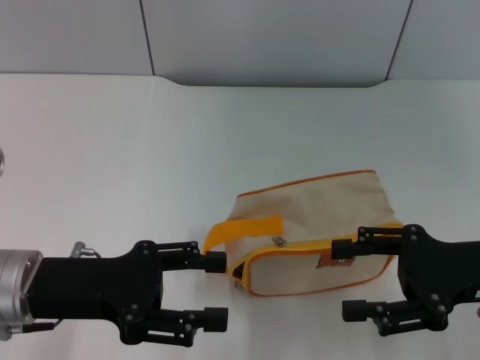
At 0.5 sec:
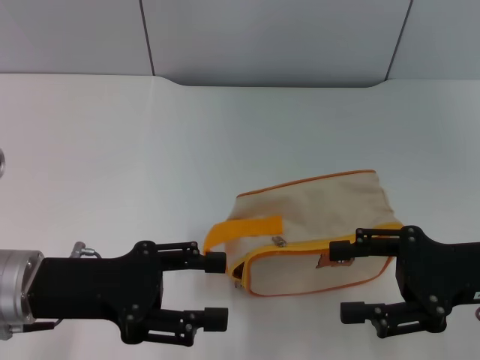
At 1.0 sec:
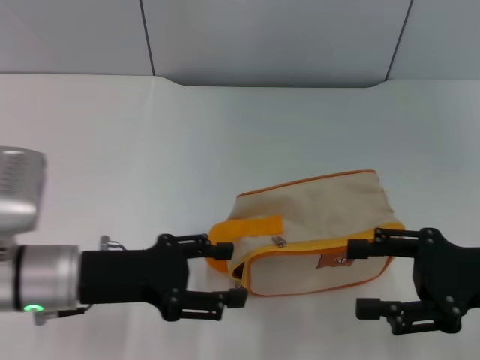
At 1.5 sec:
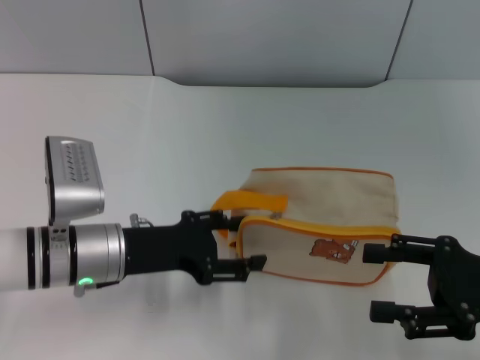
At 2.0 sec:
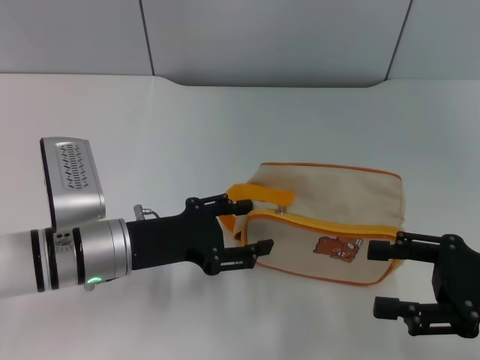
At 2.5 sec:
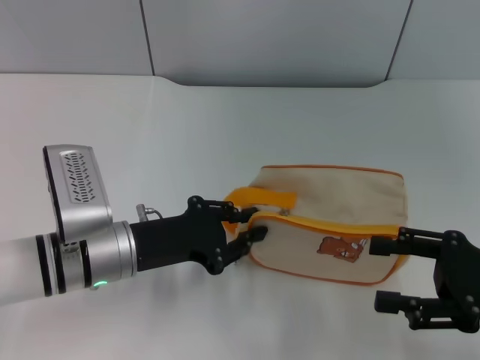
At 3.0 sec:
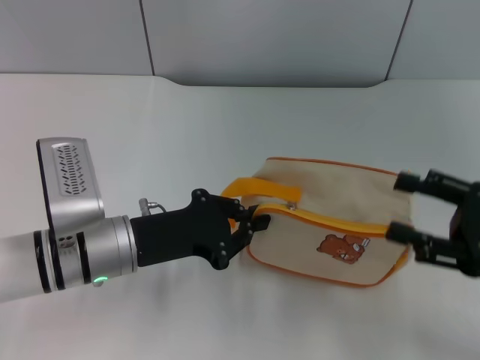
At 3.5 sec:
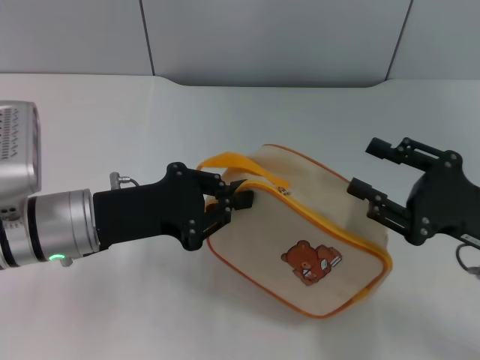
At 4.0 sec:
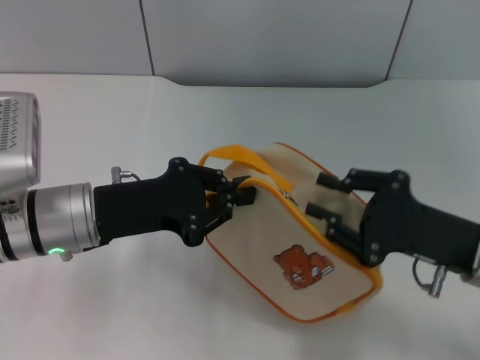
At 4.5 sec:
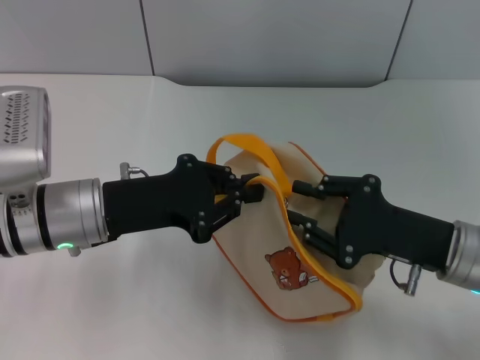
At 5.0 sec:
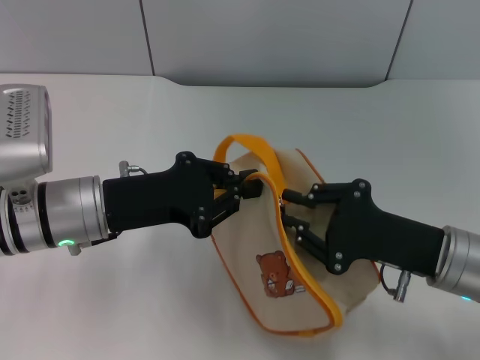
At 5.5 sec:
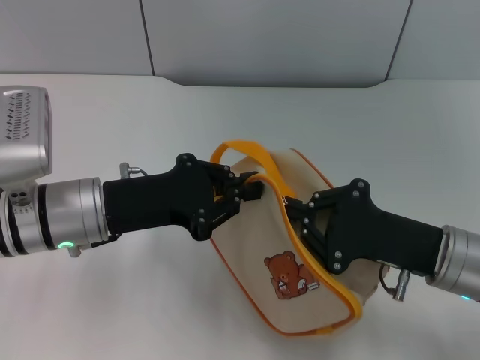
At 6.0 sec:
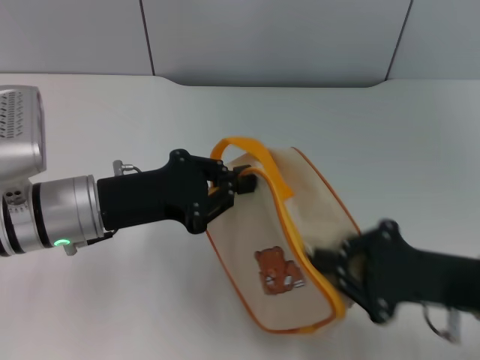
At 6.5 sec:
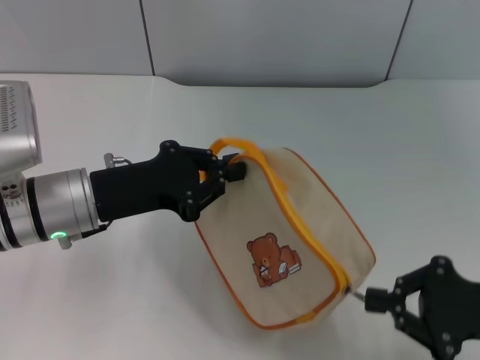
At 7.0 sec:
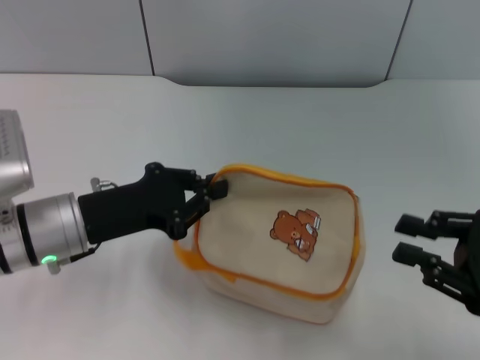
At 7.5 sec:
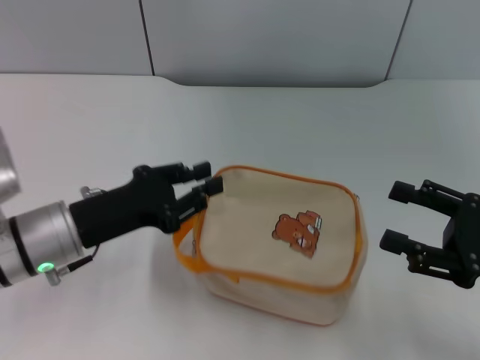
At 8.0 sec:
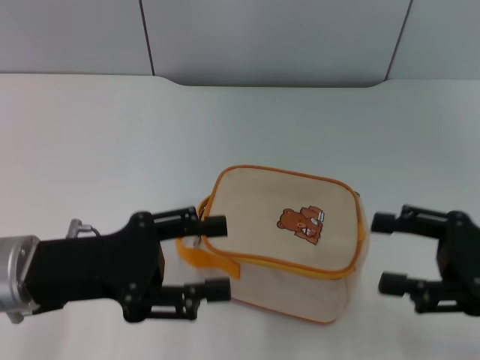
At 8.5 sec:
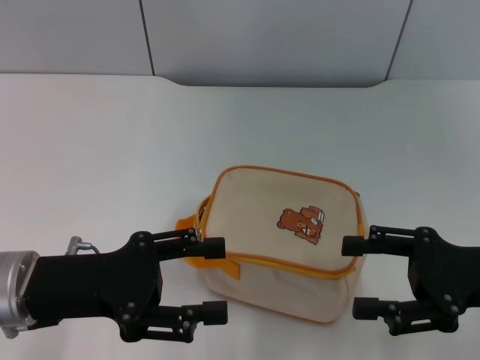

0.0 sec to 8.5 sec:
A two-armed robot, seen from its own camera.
Step, 0.0 sec to 3.5 sec: Pick up the bag with left gripper.
Step, 4.0 sec to 6.5 sec: Unzip the zipper of bag with right gripper.
0.0 sec to 2.0 sec: The left gripper travels to the right by roughly 5 cm.
2.0 sec to 4.0 sec: The left gripper changes place by some 5 cm, and closes its fingers. Meanwhile the right gripper travels to the left by some 5 cm, and closes its fingers.
4.0 sec to 6.5 sec: The right gripper is displaced to the right by about 5 cm, and closes.
6.5 sec to 8.5 sec: The right gripper opens up. The left gripper heads backward, covering roughly 5 cm, and opens.
